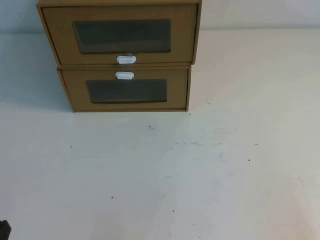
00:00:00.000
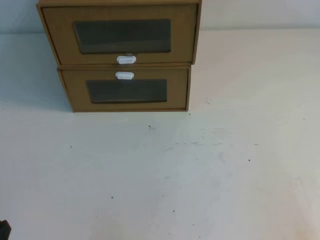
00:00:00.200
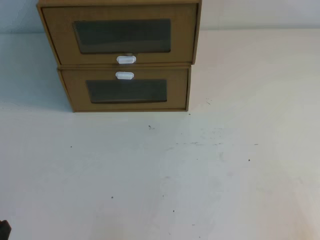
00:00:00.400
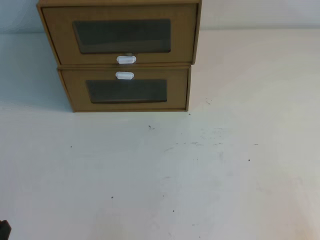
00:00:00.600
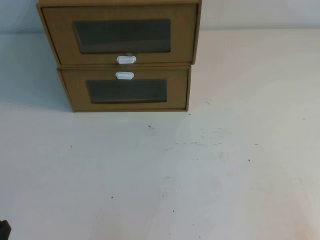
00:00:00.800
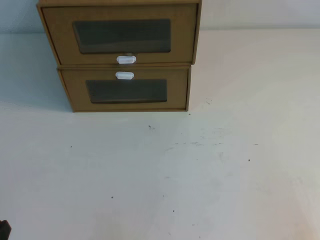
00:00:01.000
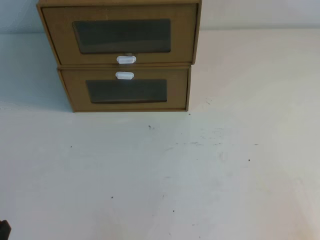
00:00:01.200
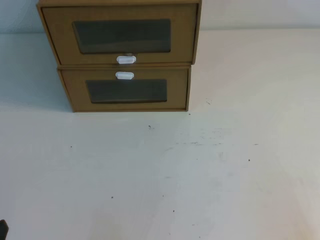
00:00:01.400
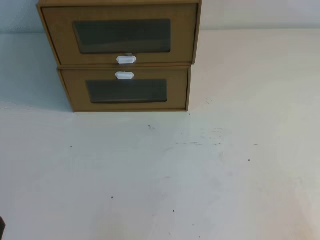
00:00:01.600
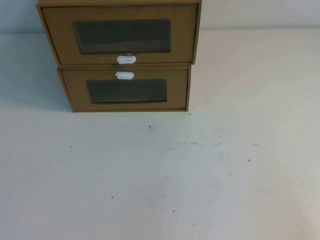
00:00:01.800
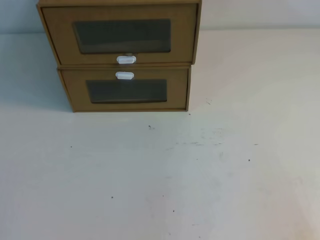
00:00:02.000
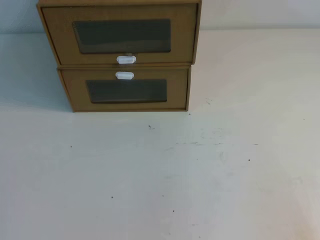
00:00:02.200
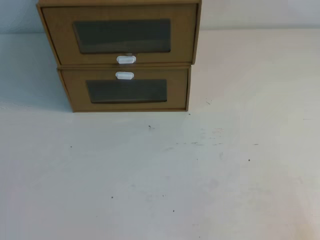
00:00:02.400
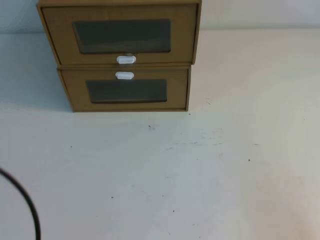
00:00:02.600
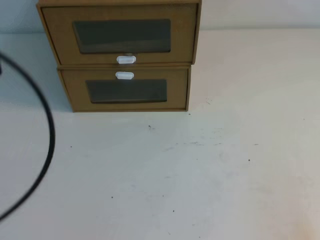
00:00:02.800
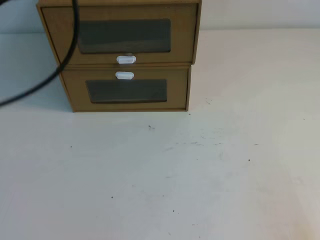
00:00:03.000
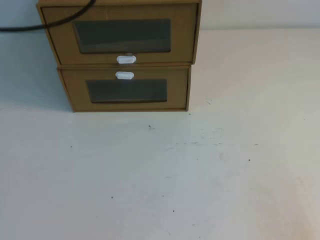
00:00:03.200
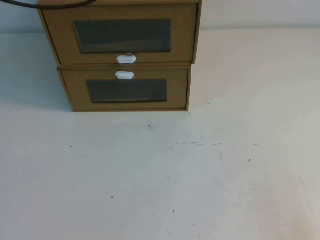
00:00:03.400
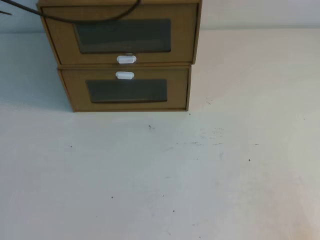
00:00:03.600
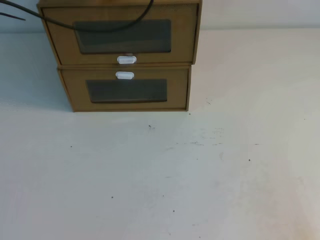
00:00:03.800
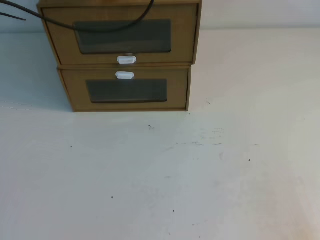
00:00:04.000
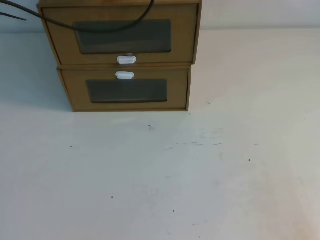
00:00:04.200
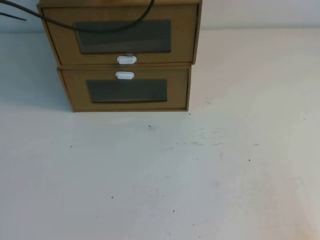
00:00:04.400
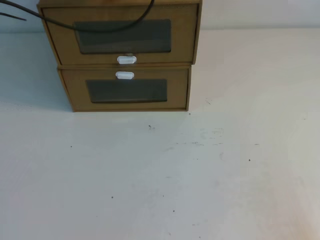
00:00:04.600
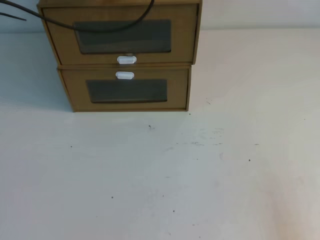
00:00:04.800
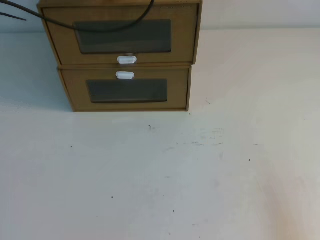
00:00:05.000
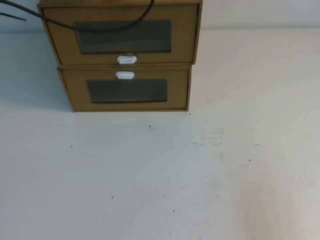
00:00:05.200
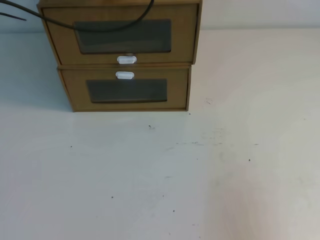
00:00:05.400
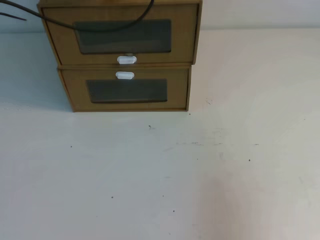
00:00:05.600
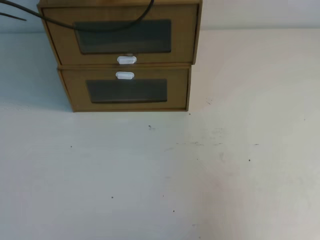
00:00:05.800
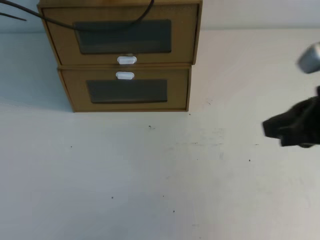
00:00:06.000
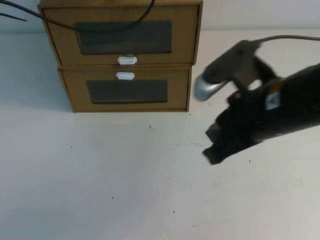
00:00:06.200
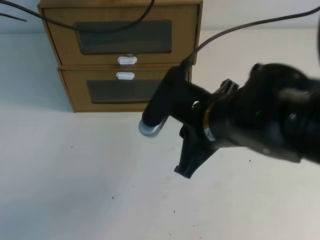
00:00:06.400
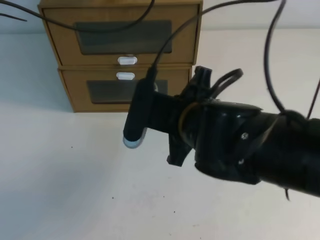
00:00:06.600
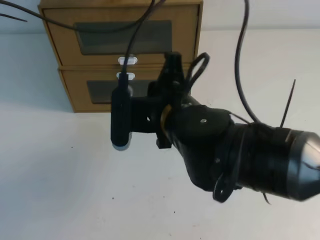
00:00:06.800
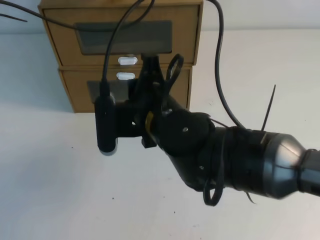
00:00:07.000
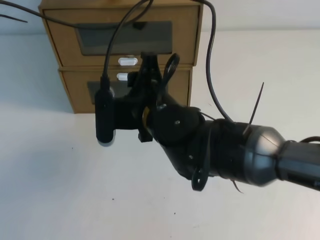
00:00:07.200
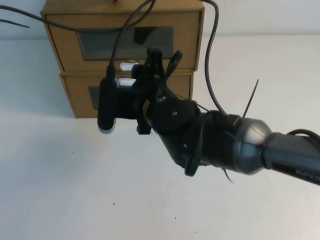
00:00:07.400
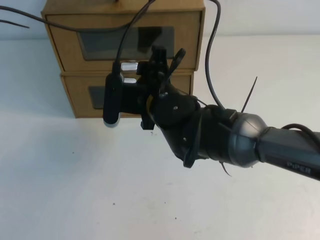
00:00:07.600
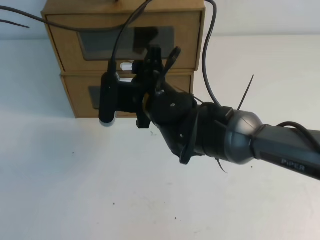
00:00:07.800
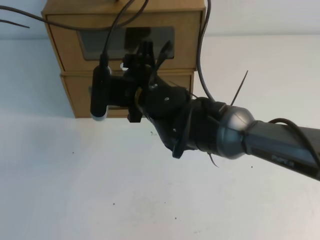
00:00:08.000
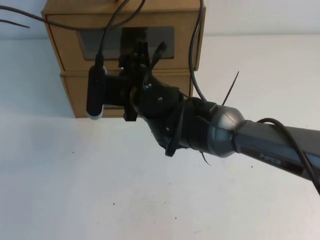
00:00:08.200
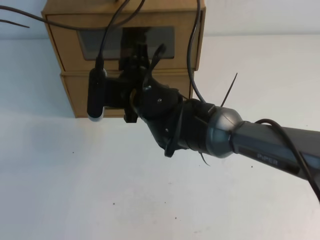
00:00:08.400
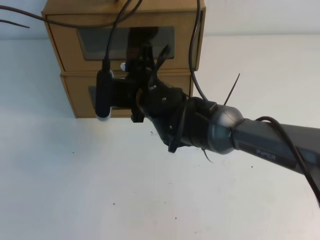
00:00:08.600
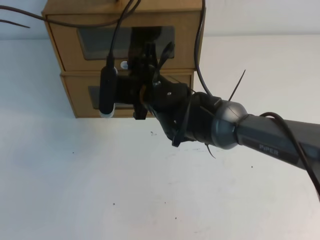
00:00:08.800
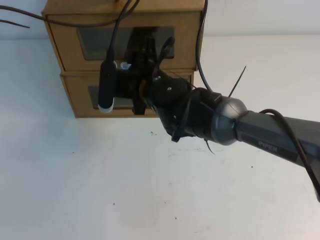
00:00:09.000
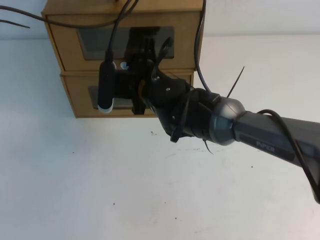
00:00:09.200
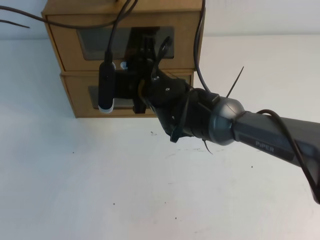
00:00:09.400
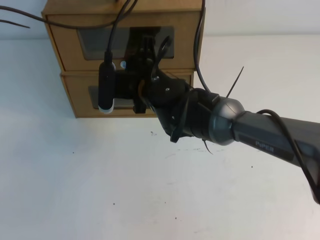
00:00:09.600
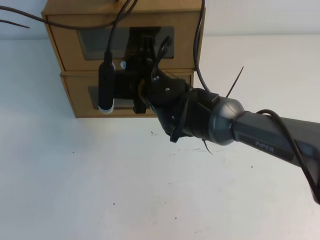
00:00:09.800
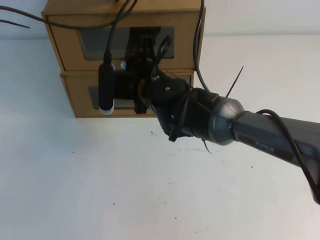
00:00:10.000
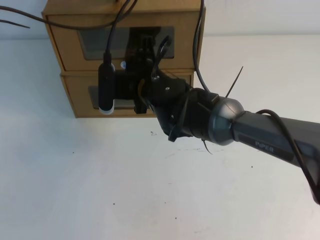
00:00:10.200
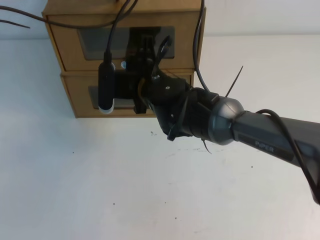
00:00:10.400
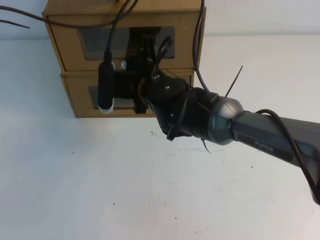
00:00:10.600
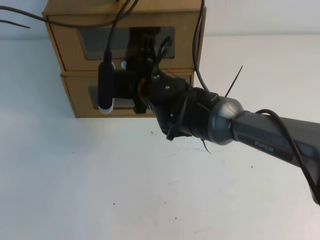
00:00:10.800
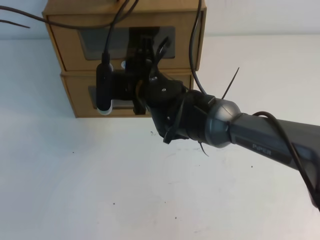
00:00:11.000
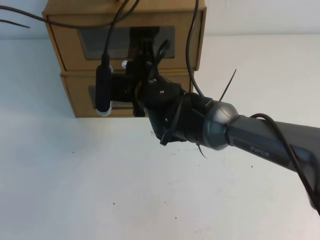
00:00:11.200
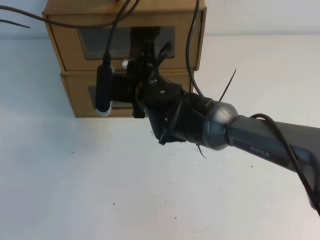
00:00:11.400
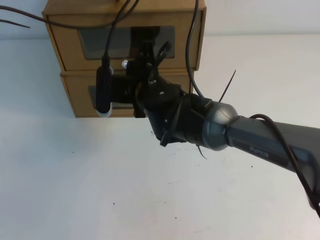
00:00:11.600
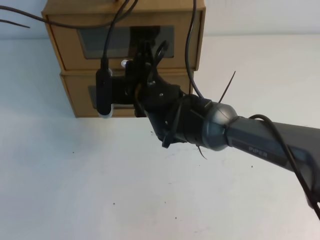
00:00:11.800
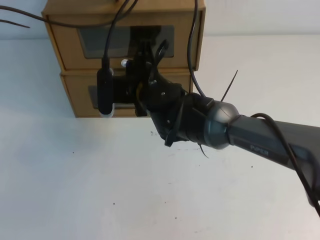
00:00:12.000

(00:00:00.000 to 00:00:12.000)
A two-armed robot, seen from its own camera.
Task of the whole recording: open the shoebox on the table.
00:00:00.000 - 00:00:01.600: Both grippers stay put.
00:00:01.600 - 00:00:03.000: The left gripper is displaced upward and forward by roughly 35 cm.
00:00:03.000 - 00:00:04.400: The left gripper moves forward, about 25 cm.
00:00:04.400 - 00:00:06.000: The right gripper goes roughly 25 cm upward, forward and to the left.
00:00:06.000 - 00:00:07.600: The right gripper is displaced to the left and forward by some 25 cm, and opens its fingers.
00:00:07.600 - 00:00:09.000: The right gripper moves about 5 cm.
00:00:09.000 - 00:00:10.400: The right gripper closes up.
00:00:10.400 - 00:00:12.000: The two grippers keep their place.

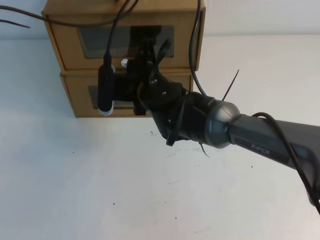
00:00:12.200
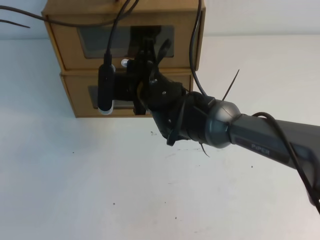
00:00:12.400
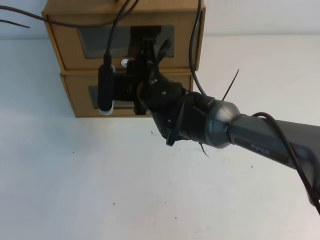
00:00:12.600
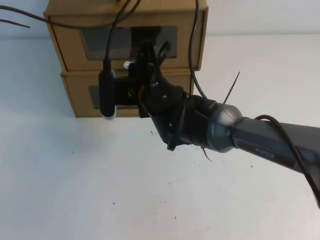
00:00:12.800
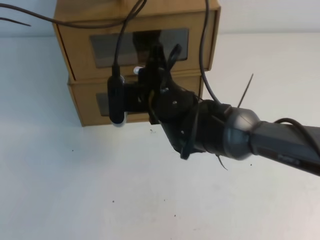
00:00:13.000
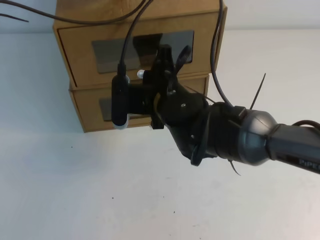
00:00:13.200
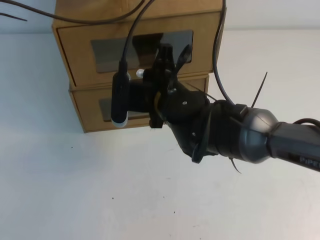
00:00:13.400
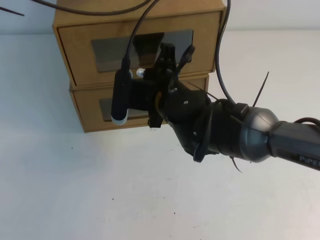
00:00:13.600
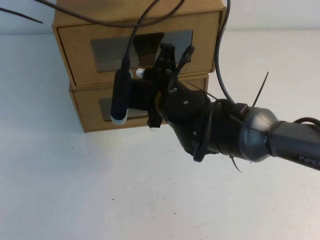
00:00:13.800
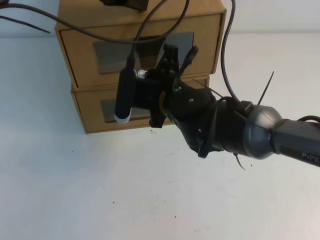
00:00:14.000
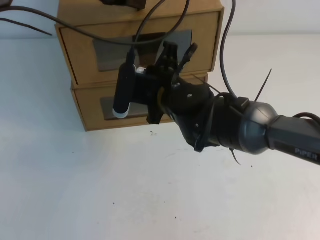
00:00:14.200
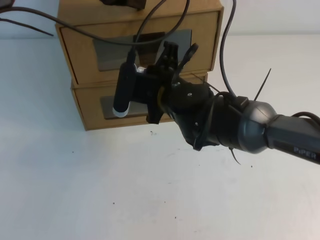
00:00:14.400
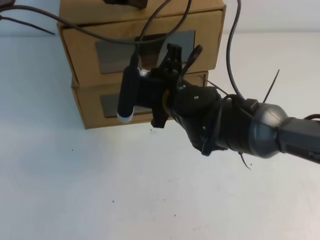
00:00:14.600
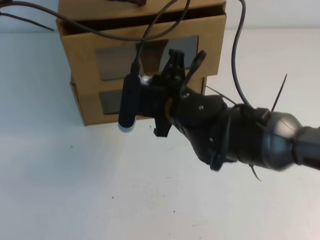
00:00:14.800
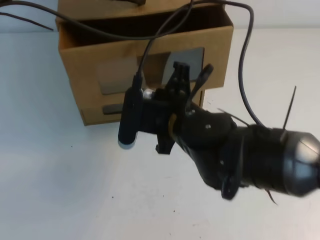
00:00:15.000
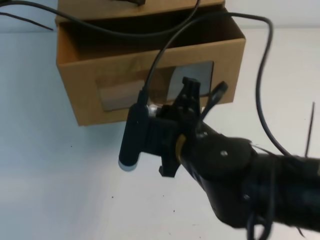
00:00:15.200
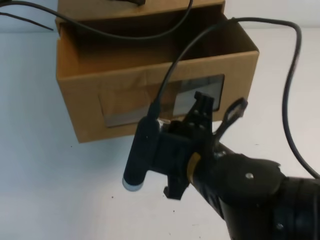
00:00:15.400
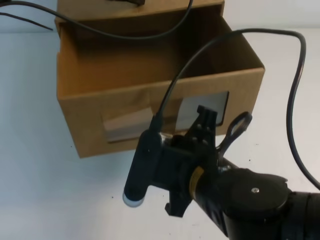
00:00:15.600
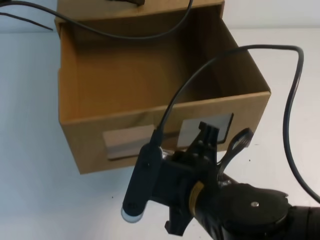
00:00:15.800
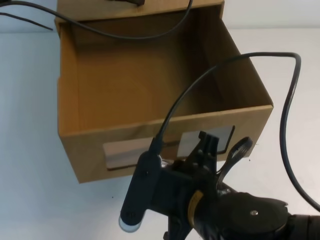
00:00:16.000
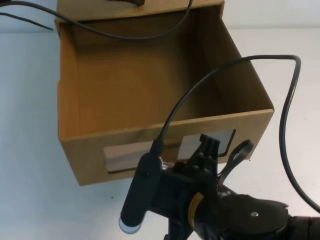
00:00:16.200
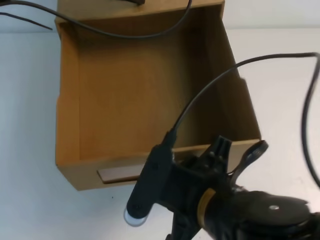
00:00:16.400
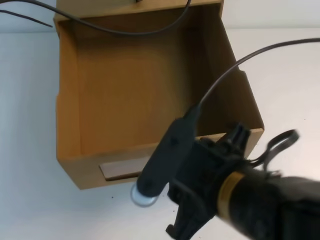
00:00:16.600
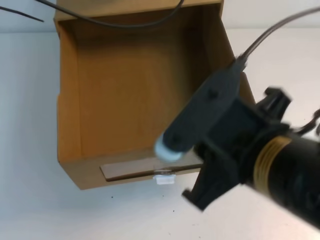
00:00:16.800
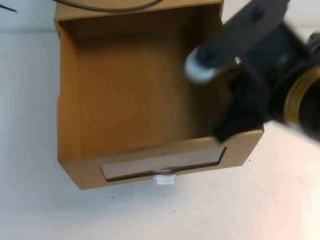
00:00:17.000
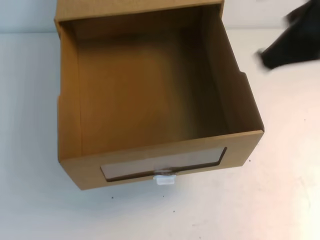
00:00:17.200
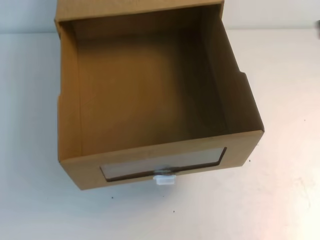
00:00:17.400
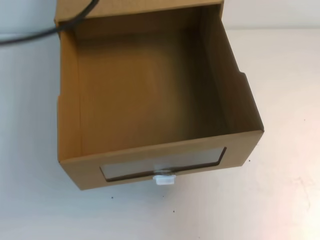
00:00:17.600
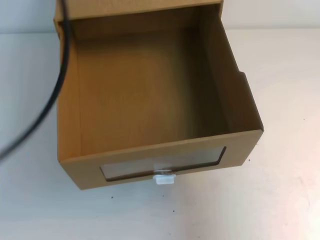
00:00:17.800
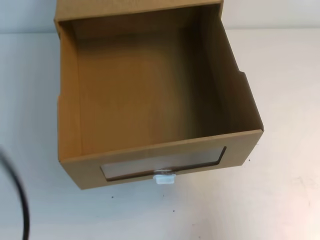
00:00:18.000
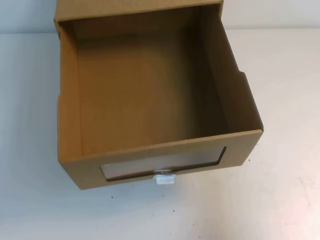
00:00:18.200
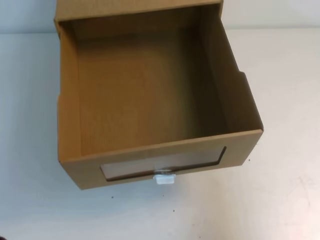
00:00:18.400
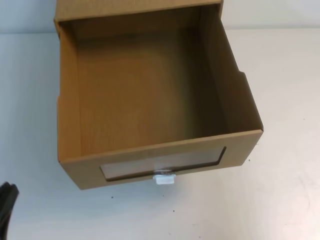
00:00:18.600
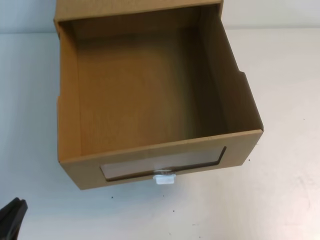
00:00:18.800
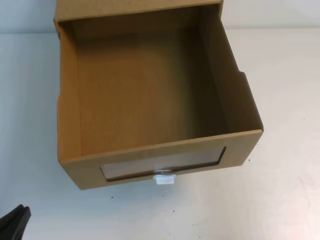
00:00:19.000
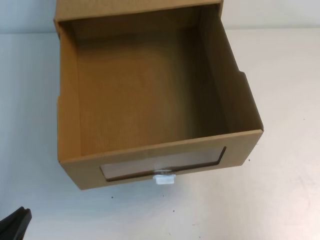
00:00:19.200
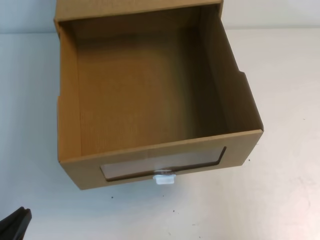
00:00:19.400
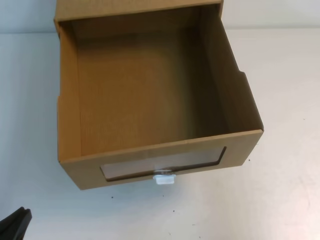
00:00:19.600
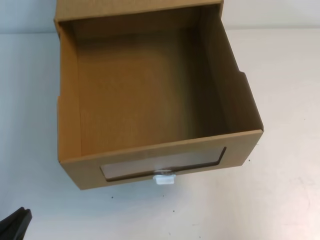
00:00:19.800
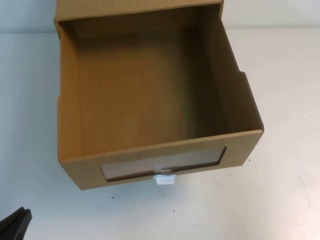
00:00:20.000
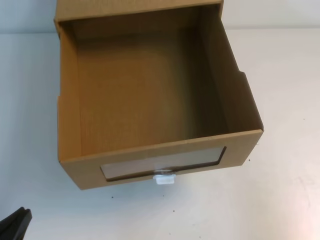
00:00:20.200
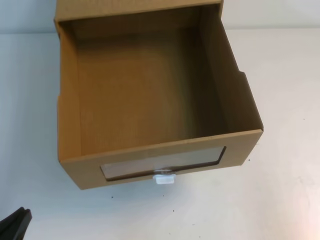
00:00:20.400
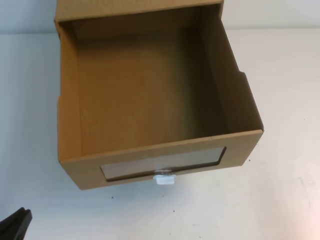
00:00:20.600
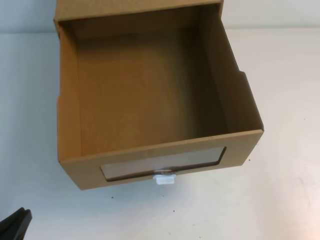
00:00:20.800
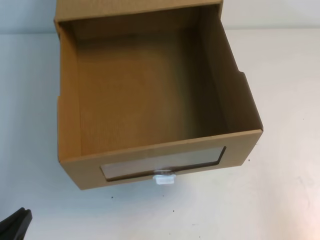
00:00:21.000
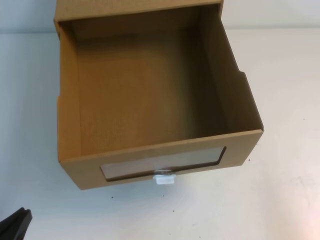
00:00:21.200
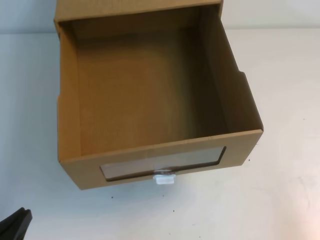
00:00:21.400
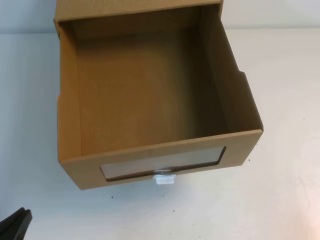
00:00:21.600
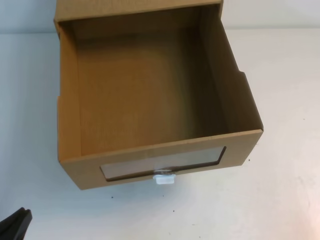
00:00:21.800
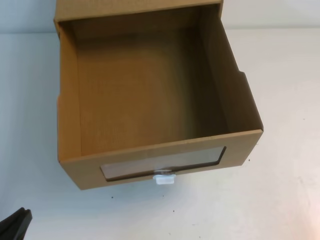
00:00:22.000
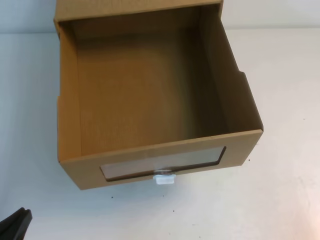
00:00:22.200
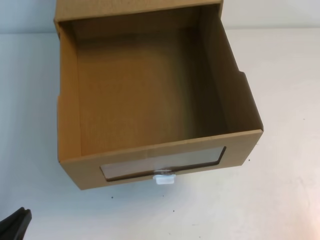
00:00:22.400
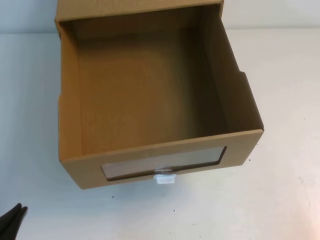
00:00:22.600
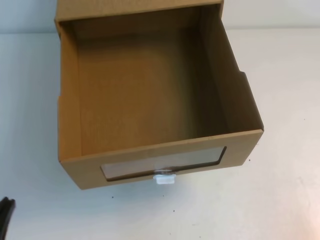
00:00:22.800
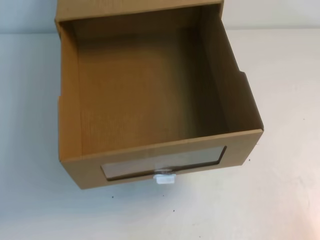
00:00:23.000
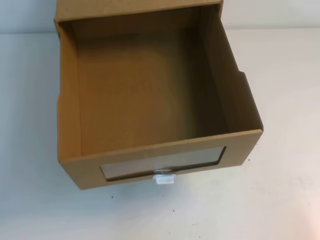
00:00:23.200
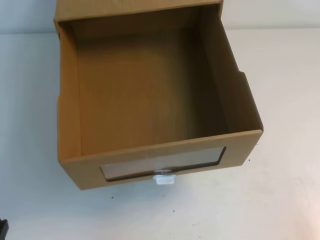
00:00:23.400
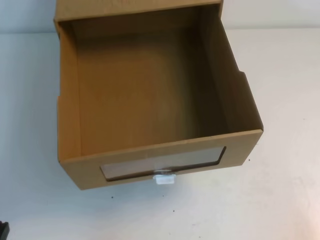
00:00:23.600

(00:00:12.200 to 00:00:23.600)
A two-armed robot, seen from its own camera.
Task of the whole recording: open the shoebox on the table.
Step, 00:00:12.200 - 00:00:23.600: Open the shoe box.
00:00:12.200 - 00:00:13.600: The right gripper moves approximately 5 cm.
00:00:13.600 - 00:00:15.000: The right gripper is displaced backward by roughly 5 cm.
00:00:15.000 - 00:00:16.400: The right gripper heads backward, covering approximately 15 cm, and opens its fingers.
00:00:16.400 - 00:00:17.800: The right gripper shifts about 30 cm to the right and upward, and closes, while the left gripper moves backward and to the left, some 25 cm.
00:00:17.800 - 00:00:19.400: The right gripper moves backward and downward, roughly 15 cm. Meanwhile the left gripper goes roughly 35 cm downward.
00:00:19.400 - 00:00:20.800: The right gripper heads downward and backward, covering some 15 cm.
